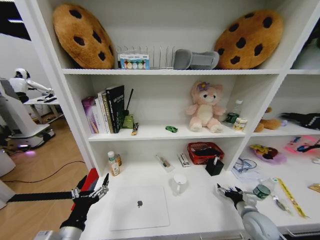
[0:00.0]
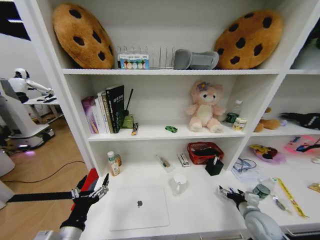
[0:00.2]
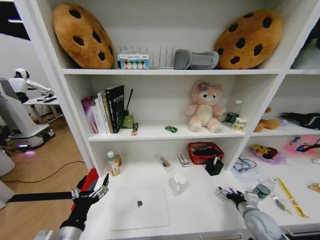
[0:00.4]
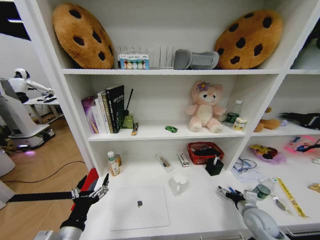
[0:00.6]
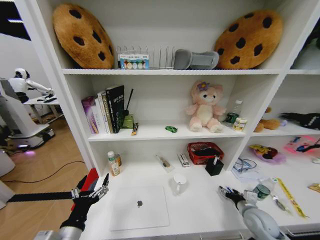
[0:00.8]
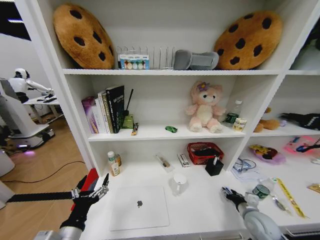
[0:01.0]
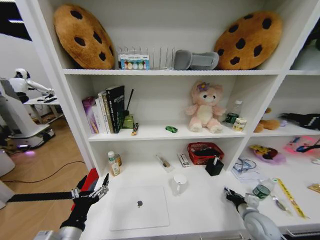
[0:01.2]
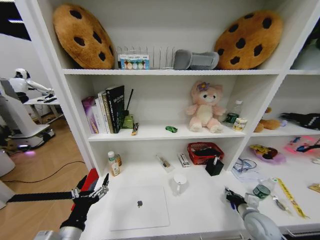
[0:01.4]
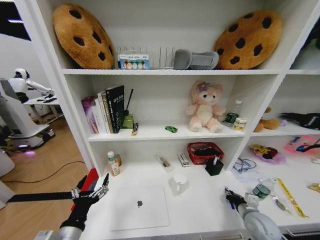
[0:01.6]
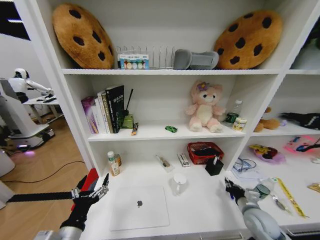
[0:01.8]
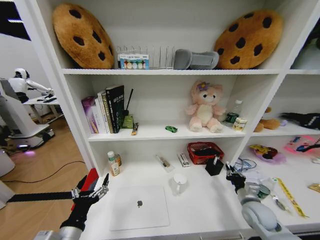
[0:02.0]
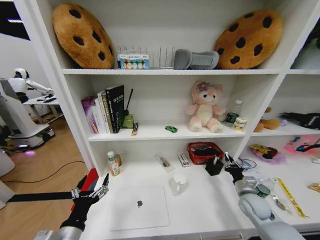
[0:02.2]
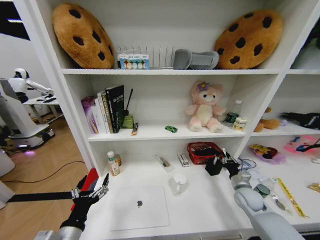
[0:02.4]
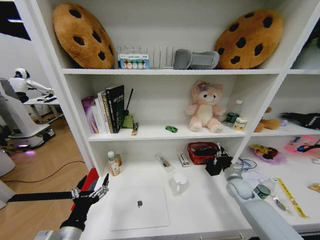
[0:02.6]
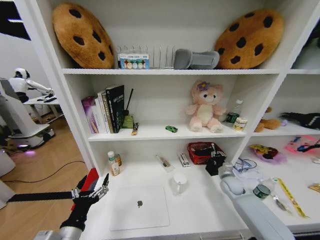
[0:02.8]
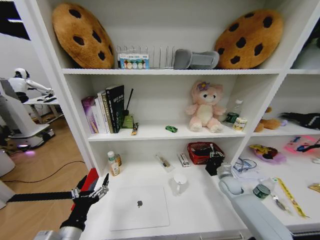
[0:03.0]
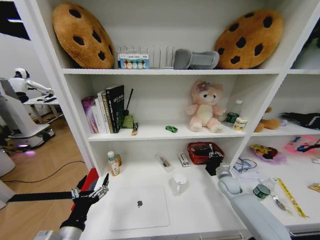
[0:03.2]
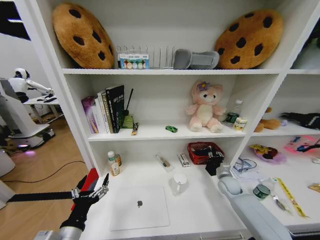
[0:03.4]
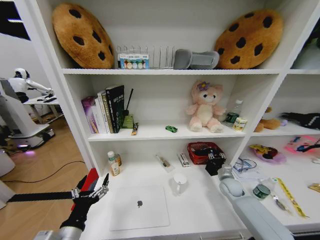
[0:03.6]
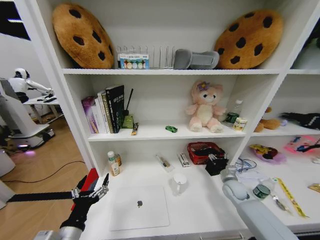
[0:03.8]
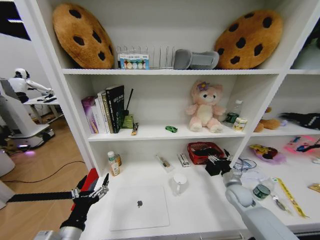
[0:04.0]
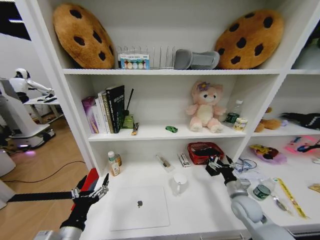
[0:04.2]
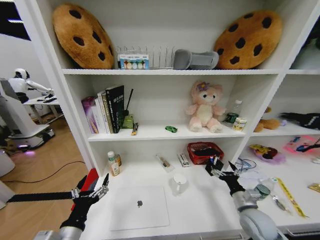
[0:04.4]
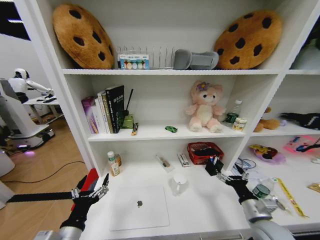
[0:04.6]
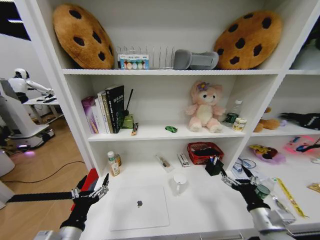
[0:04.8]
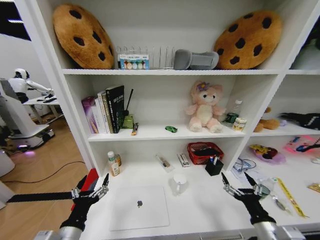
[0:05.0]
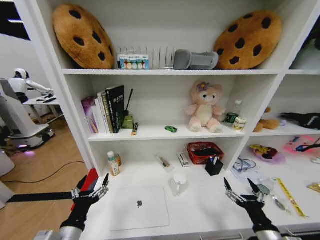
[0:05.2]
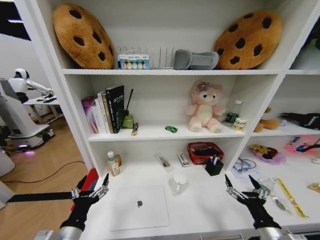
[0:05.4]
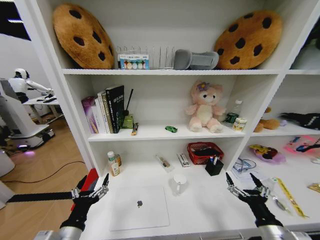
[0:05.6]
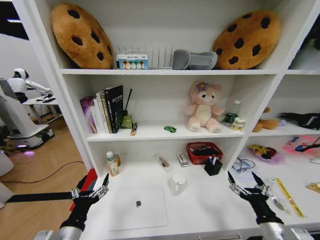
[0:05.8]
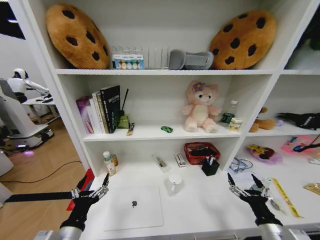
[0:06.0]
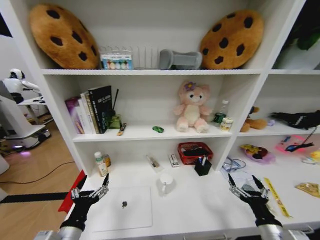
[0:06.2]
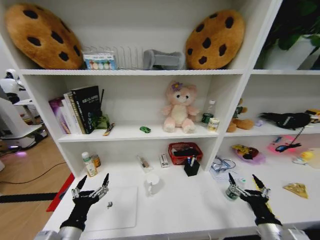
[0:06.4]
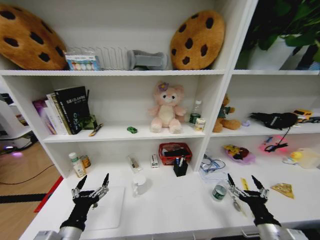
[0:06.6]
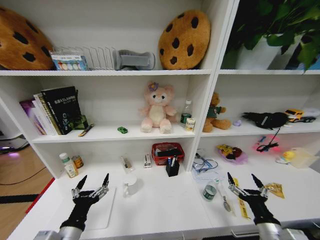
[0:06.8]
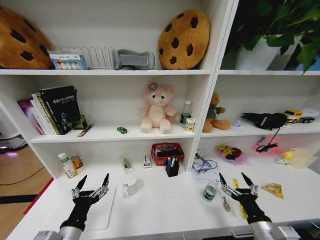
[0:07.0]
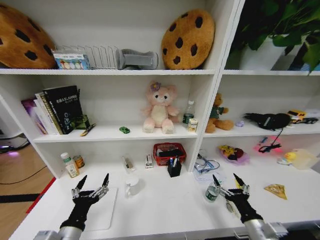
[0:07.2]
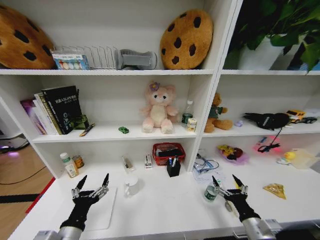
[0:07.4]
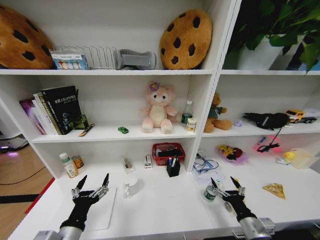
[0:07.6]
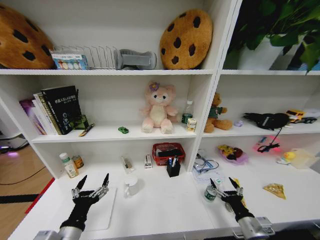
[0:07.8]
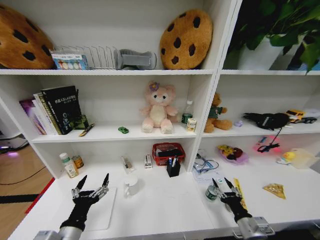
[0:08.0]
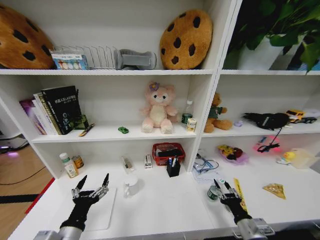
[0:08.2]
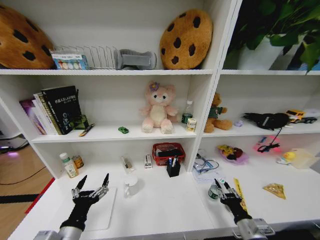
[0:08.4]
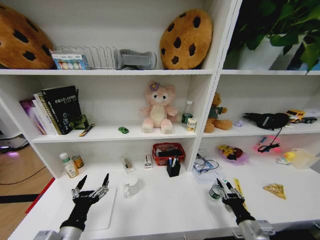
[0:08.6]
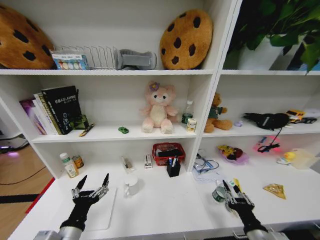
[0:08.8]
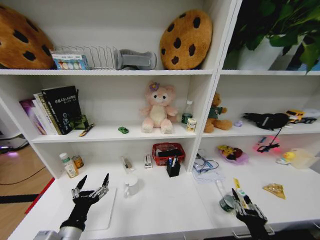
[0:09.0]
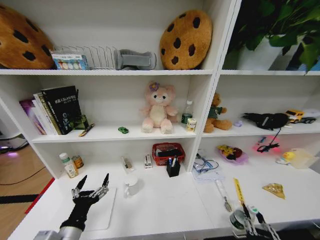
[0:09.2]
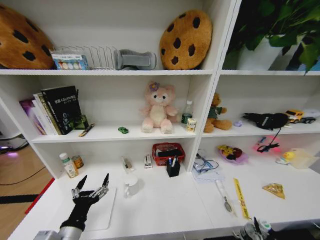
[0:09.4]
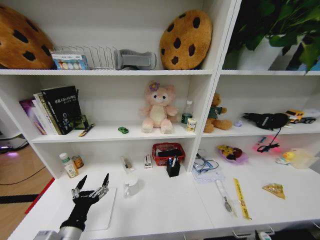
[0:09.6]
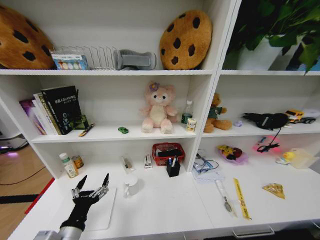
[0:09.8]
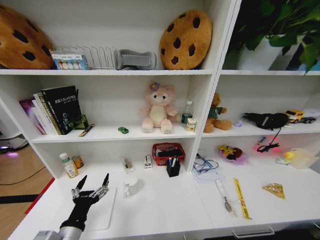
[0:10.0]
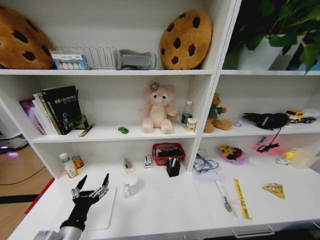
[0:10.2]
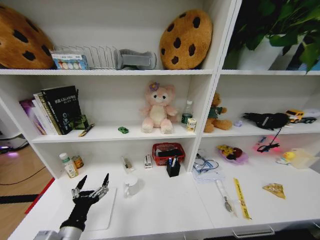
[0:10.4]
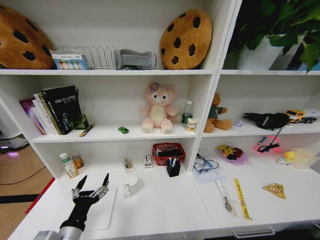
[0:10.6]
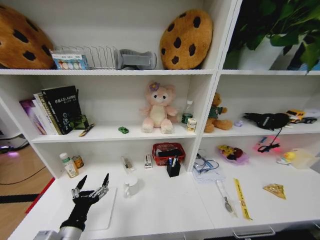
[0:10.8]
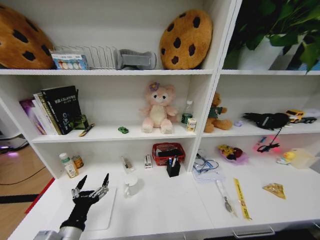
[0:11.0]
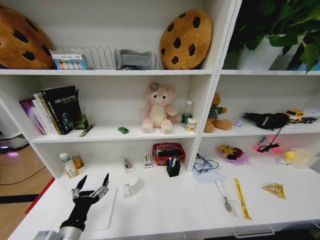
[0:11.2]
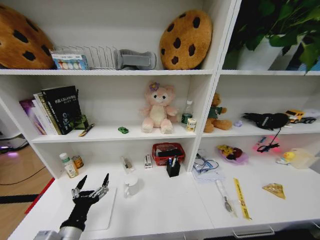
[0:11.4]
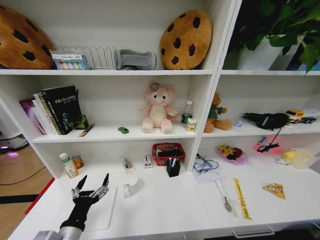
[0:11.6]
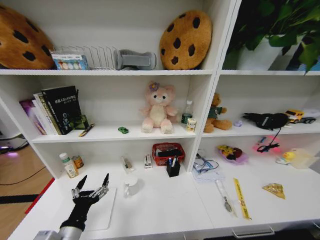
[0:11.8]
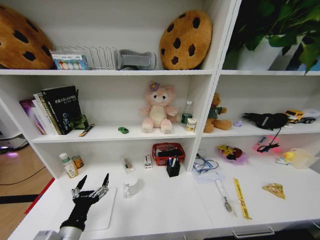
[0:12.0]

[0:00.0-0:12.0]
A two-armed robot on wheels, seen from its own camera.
Task of the whole recording: Organize the objects on the table.
0:00.0 to 0:01.6: The right gripper closes up.
0:01.6 to 0:03.0: The right gripper moves forward, roughly 15 cm.
0:03.0 to 0:04.4: The right gripper moves backward, roughly 15 cm, and opens up.
0:04.4 to 0:06.0: The right gripper travels backward by some 10 cm.
0:06.0 to 0:07.6: The right gripper shifts by approximately 5 cm.
0:07.6 to 0:09.0: The right gripper heads backward, covering some 10 cm, and closes its fingers.
0:09.0 to 0:10.4: The right gripper goes about 30 cm downward.

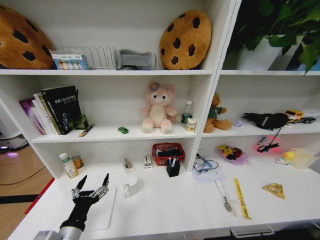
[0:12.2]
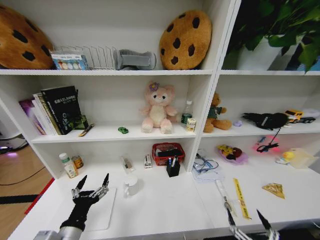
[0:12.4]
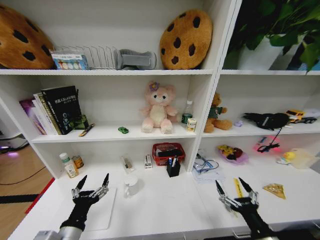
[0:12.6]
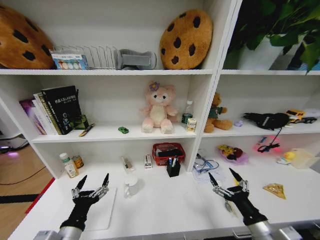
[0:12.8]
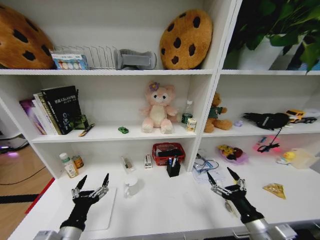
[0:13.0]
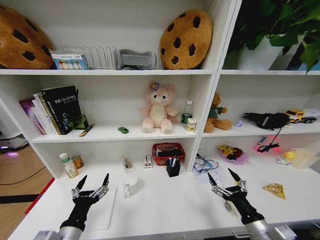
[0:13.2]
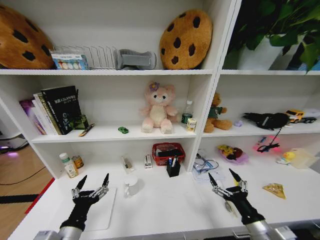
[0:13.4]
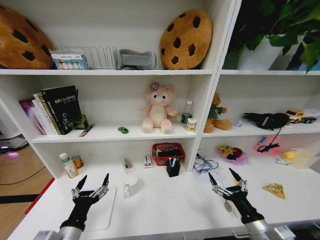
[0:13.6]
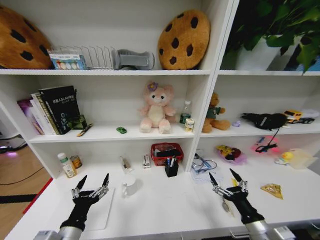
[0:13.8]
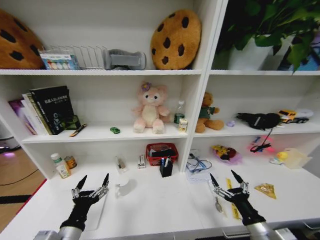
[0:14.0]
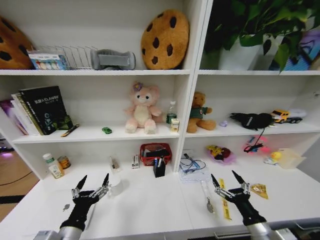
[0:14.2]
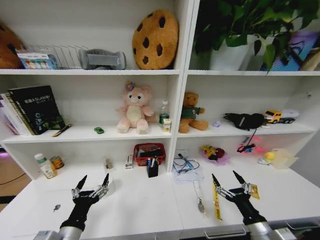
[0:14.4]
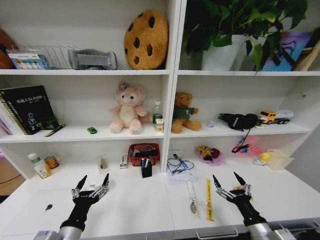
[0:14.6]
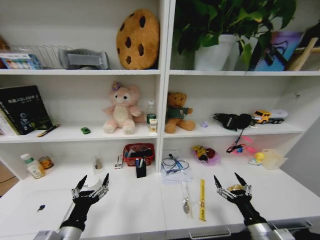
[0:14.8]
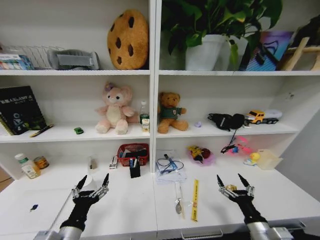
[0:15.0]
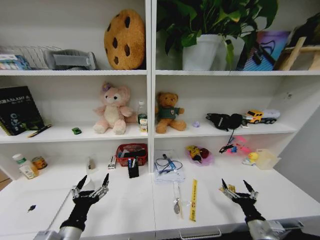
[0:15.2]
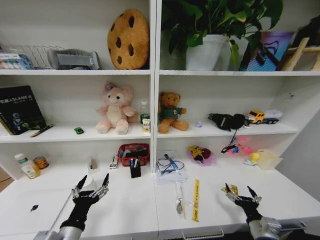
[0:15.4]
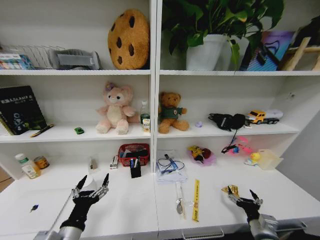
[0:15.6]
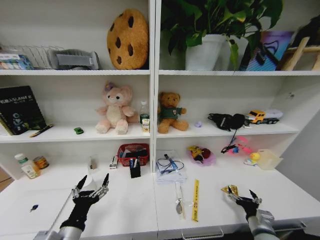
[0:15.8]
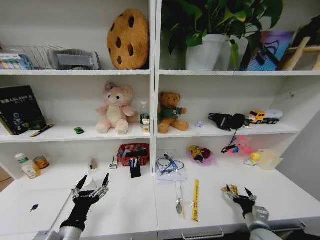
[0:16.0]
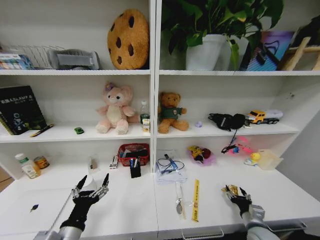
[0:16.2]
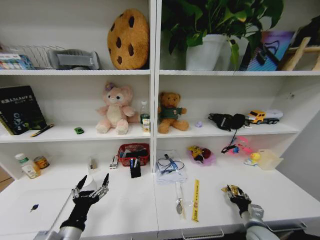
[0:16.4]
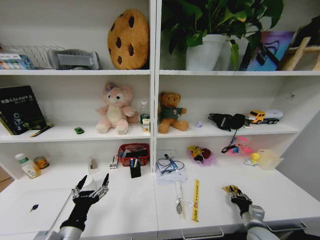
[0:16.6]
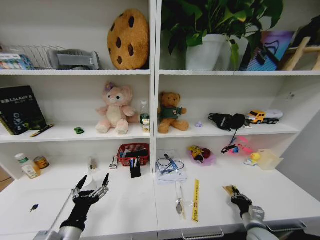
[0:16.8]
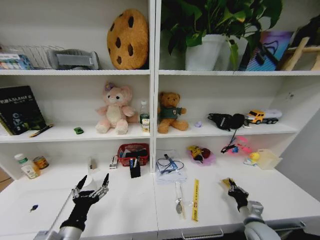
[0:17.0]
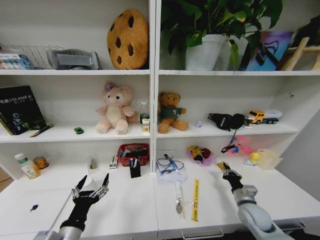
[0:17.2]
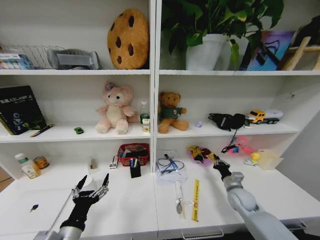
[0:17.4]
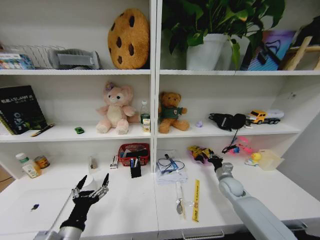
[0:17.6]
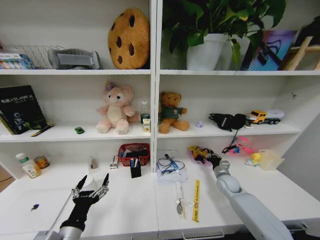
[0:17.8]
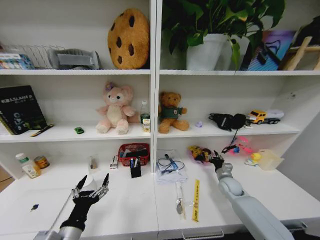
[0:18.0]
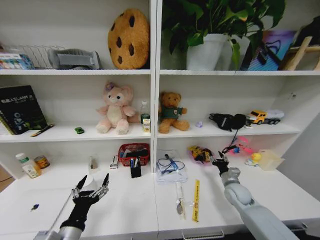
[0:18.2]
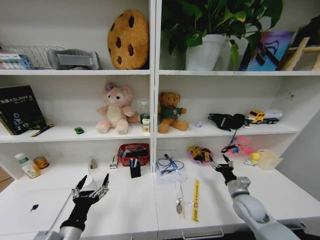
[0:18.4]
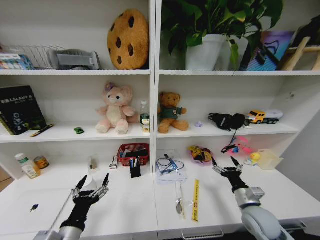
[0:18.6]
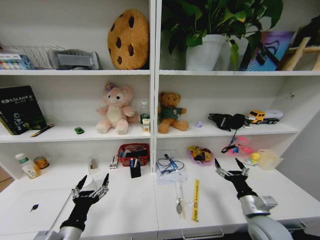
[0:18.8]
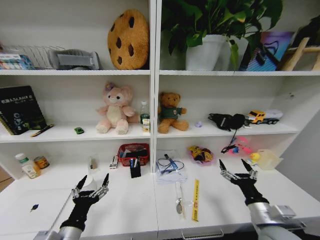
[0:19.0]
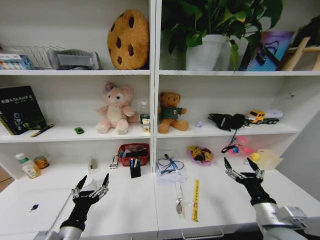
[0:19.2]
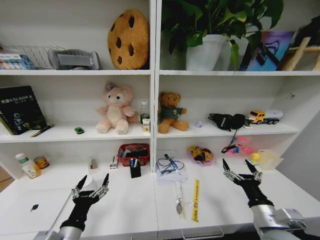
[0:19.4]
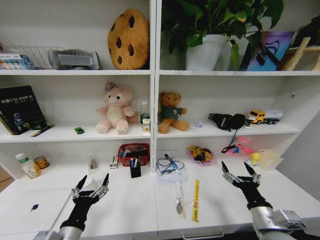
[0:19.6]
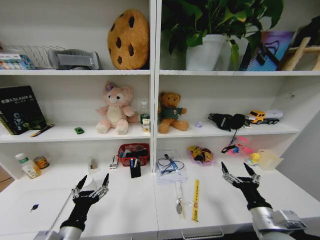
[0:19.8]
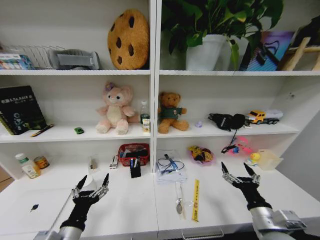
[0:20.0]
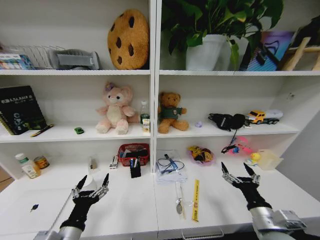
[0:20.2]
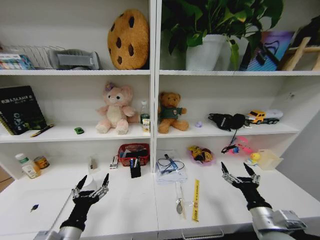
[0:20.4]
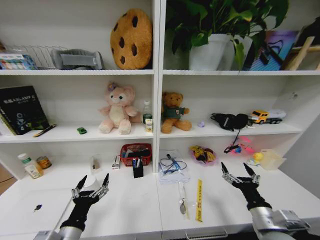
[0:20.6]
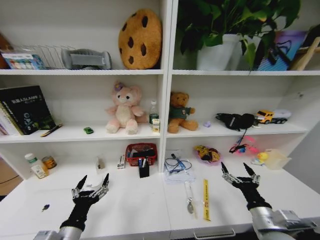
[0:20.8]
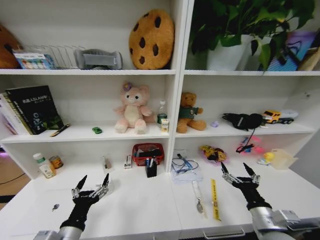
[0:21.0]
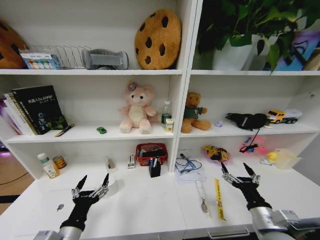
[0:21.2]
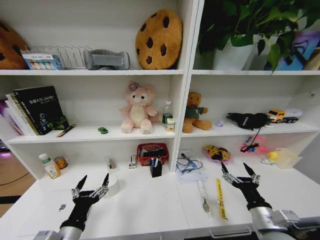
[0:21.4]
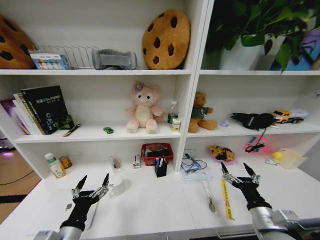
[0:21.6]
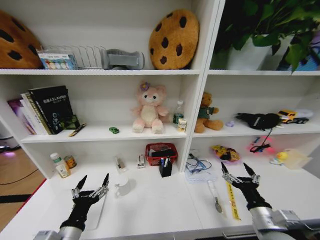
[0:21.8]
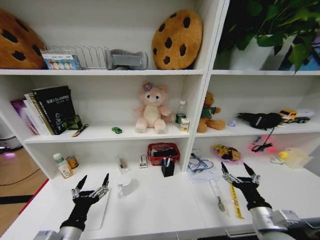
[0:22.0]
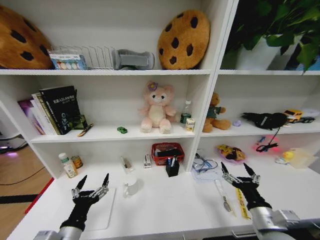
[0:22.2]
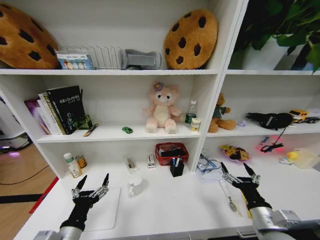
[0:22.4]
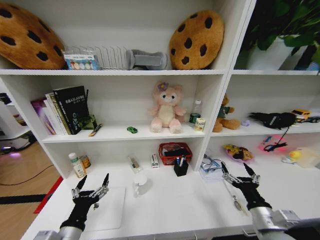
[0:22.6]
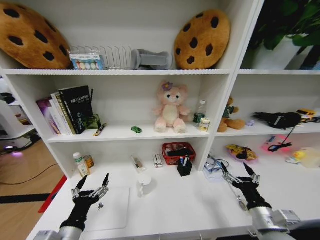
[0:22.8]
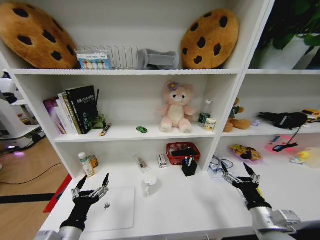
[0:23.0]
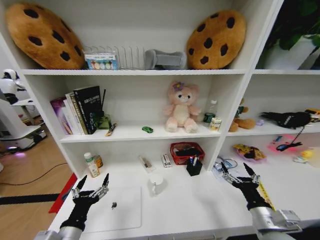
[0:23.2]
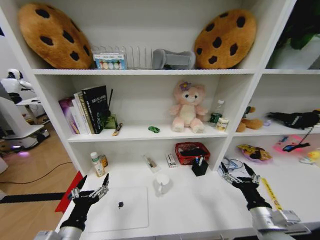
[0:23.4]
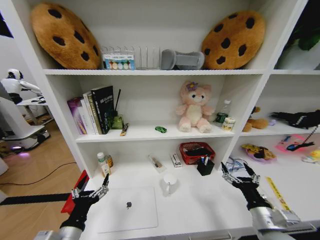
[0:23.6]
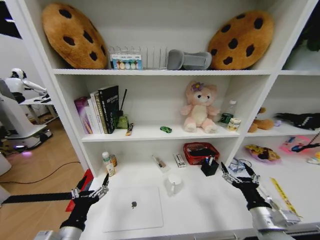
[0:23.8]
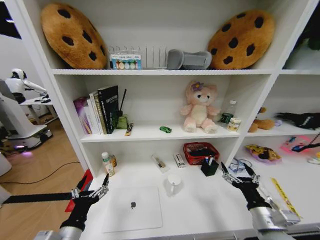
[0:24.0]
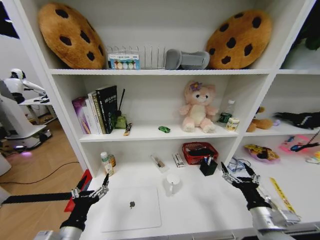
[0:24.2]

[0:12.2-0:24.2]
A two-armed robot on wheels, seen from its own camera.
Task of the whole recording: Organize the objects on the table.
0:12.2 to 0:13.8: The right gripper moves forward and upward, roughly 20 cm.
0:13.8 to 0:15.2: The right gripper shifts approximately 5 cm downward.
0:15.2 to 0:16.6: The right gripper is displaced forward and downward by roughly 5 cm, and closes up.
0:16.6 to 0:18.2: The right gripper travels forward by about 15 cm.
0:18.2 to 0:19.8: The right gripper shifts approximately 25 cm backward and upward, and opens up.
